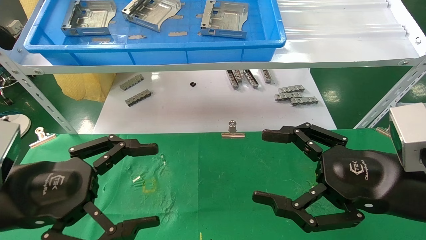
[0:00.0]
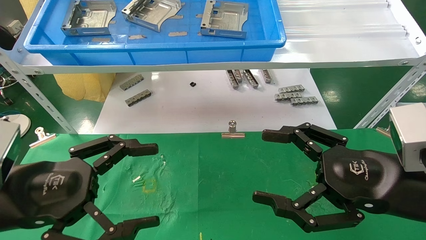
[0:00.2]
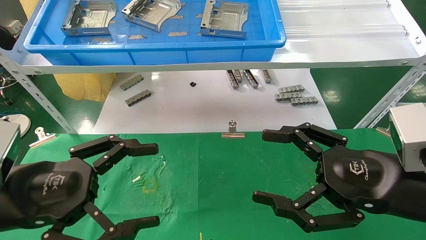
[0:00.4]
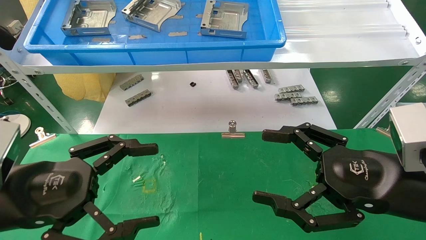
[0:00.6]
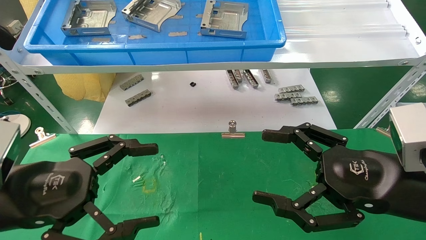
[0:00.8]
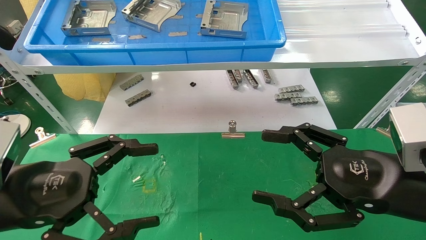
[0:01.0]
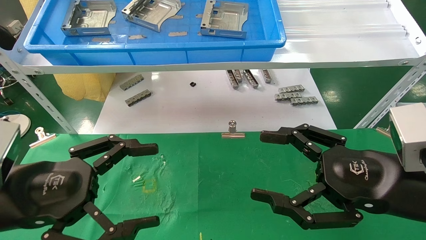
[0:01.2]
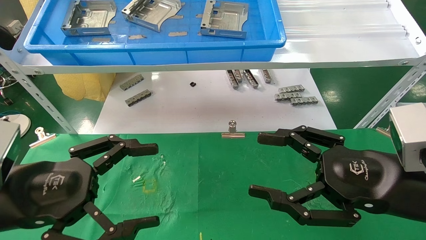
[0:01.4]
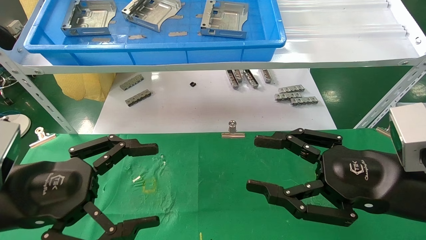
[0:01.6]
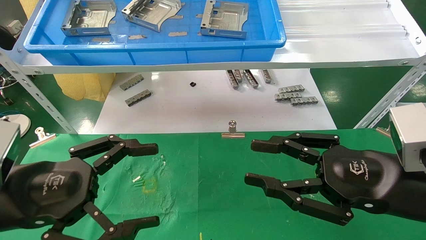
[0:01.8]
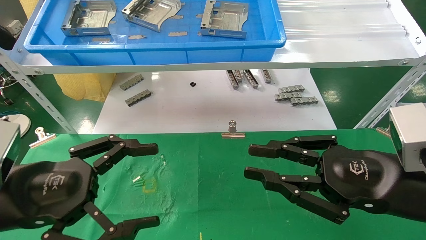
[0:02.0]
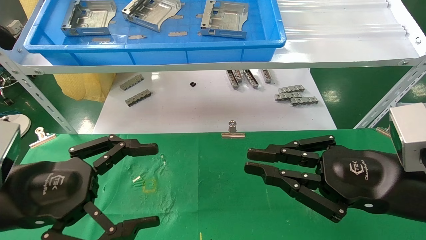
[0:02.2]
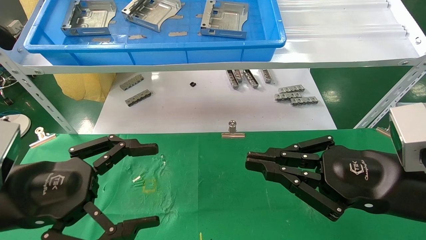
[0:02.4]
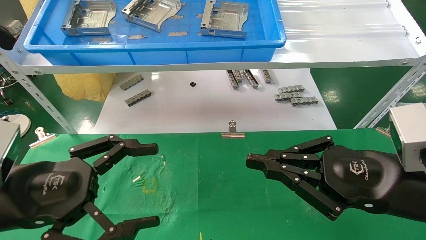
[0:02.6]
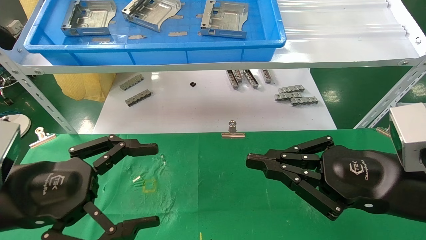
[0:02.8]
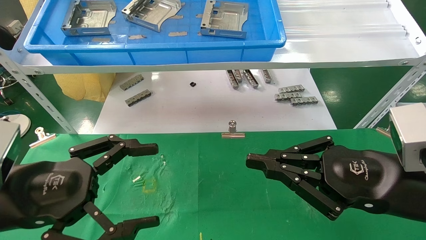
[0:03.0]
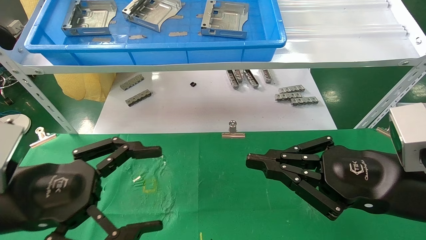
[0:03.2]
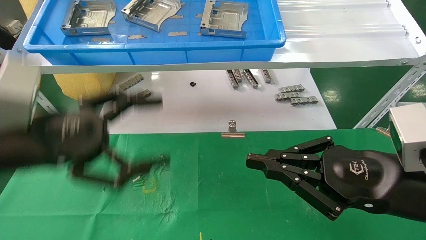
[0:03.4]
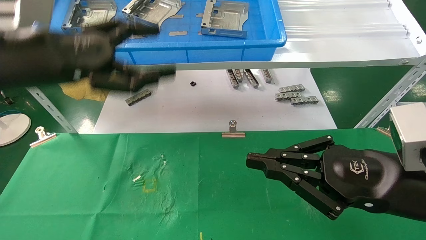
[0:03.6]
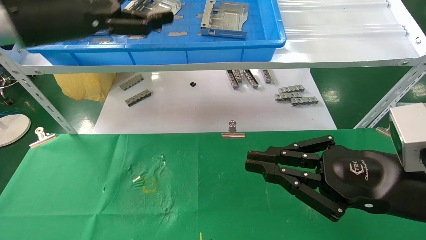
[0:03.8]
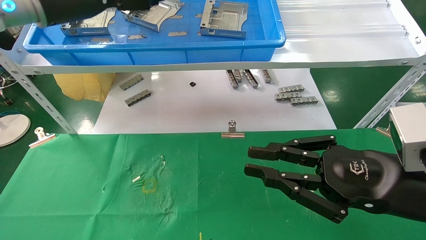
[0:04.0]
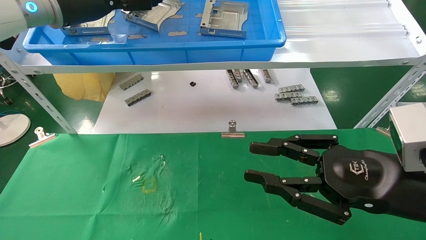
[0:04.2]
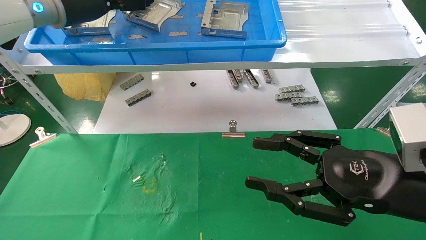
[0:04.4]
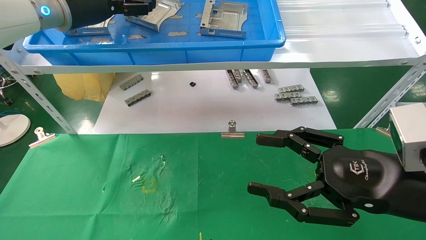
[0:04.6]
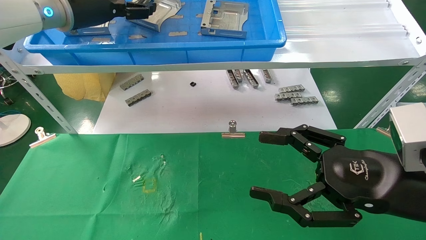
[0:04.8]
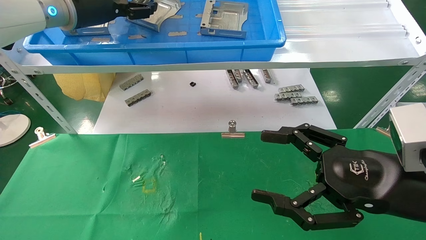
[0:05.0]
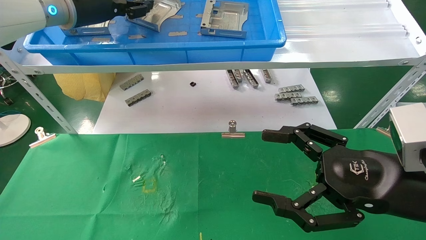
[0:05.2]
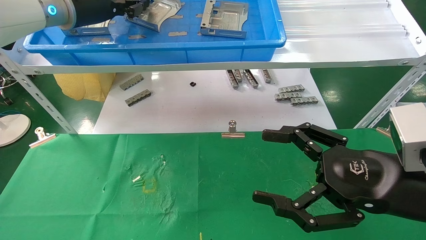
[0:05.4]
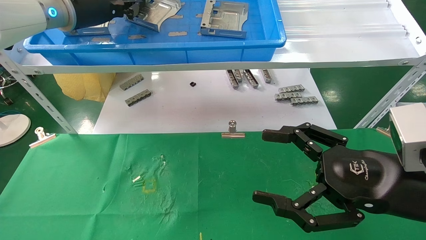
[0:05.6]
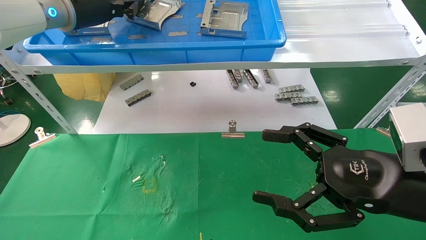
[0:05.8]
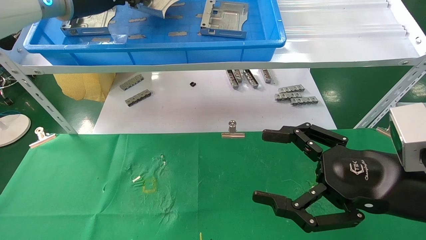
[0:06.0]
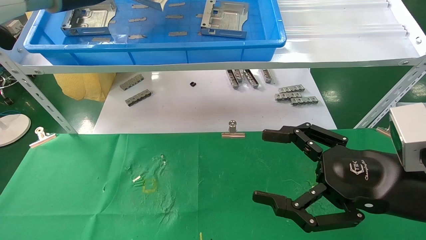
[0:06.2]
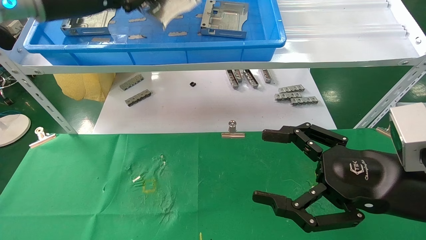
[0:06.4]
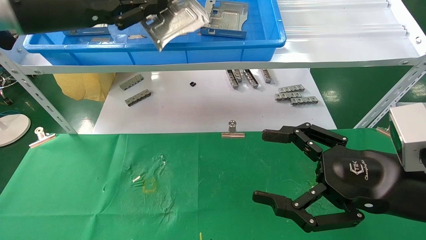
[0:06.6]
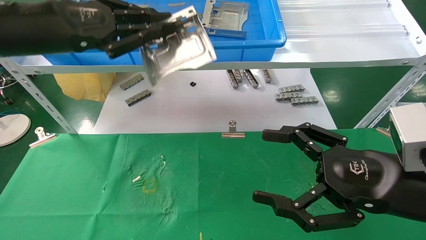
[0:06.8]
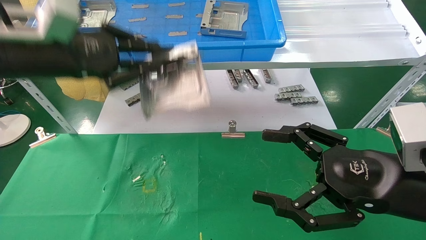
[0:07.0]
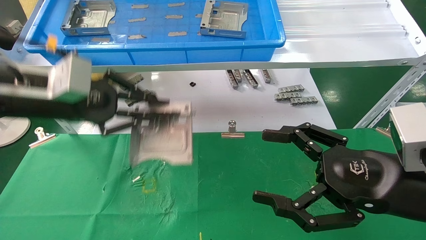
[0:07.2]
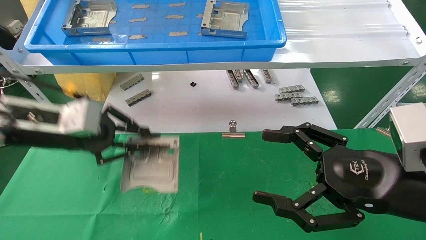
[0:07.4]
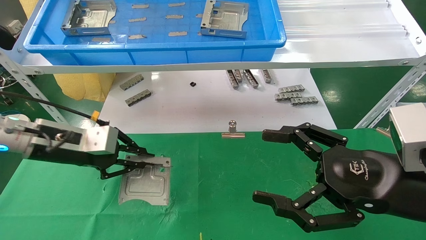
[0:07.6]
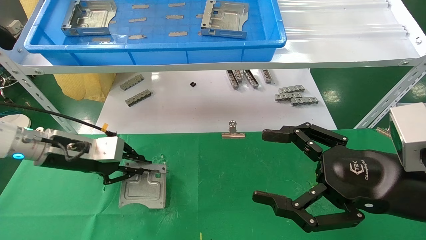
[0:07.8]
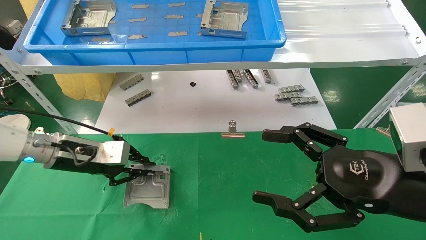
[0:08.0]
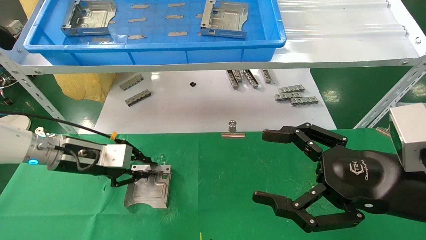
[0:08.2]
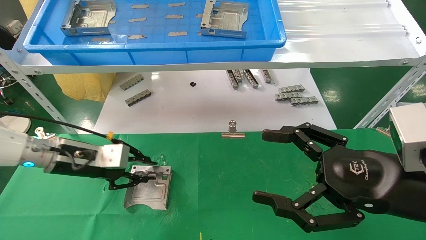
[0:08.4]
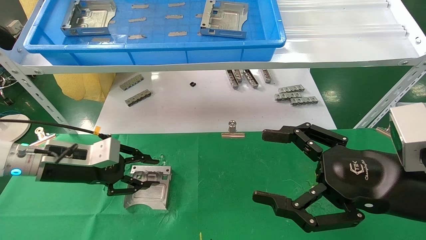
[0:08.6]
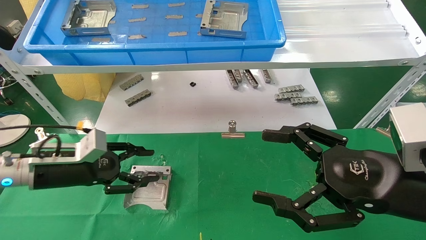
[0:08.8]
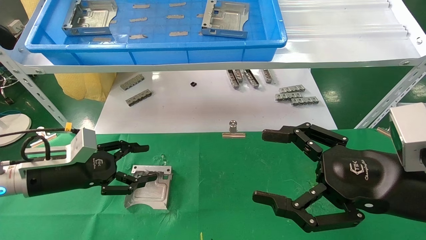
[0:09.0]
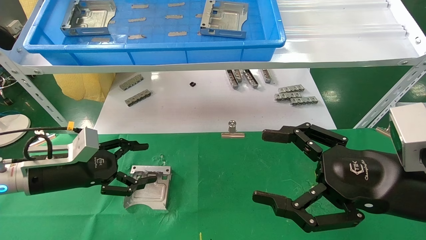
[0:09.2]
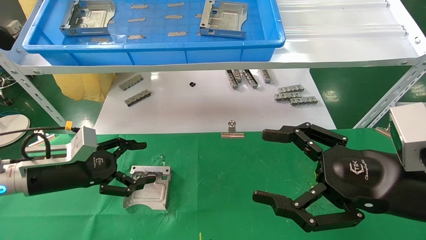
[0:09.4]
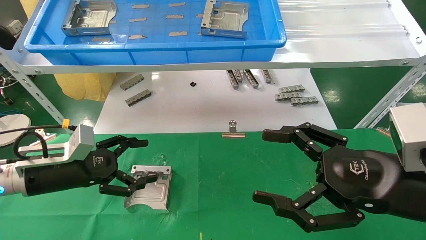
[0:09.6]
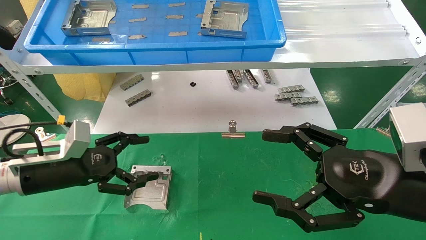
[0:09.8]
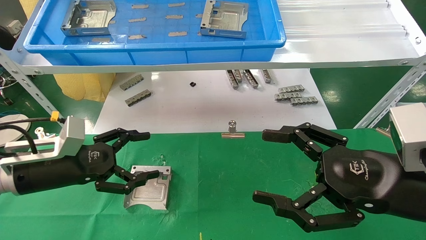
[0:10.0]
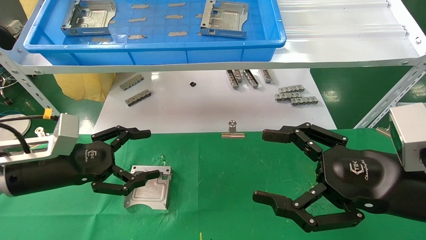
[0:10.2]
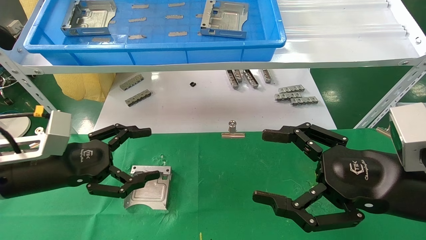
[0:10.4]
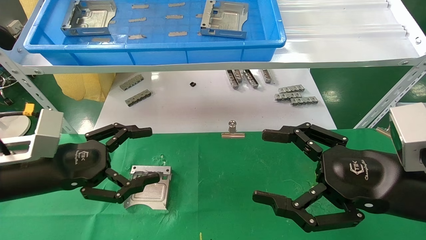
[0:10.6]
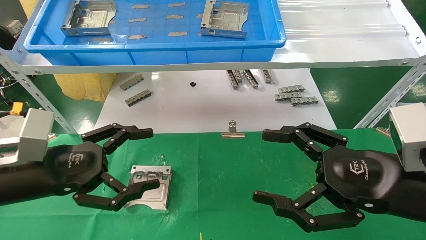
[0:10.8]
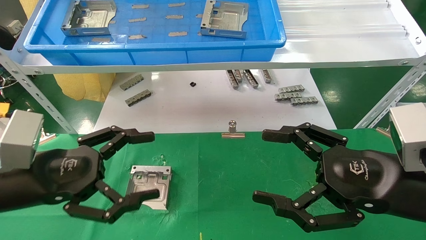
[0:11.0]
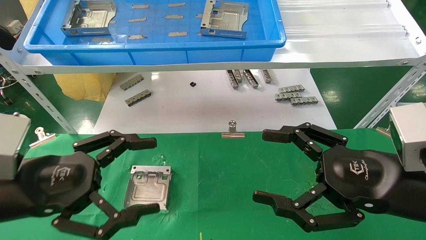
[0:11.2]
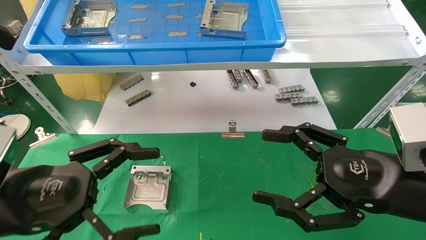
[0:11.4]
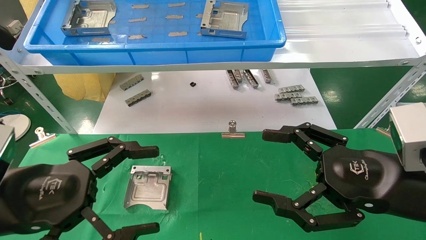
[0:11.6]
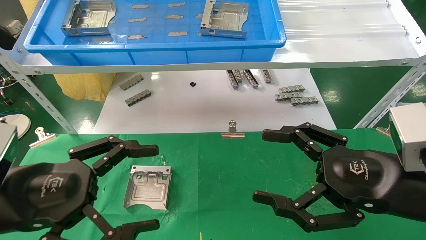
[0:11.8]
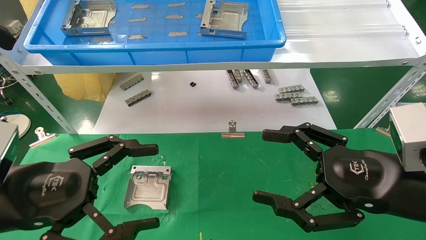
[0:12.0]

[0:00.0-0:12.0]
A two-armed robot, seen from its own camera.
Task of the whole recording: use the mechanical arm to pick up the parts and place them on the table.
Step, 0:03.2 to 0:05.6: Pick up the hard drive bracket from the feeding area.
Step, 0:05.8 to 0:08.8: Place the hard drive bracket into the box.
0:00.0 to 0:01.6: Both grippers stay about where they are.
0:01.6 to 0:03.0: The right gripper closes up.
0:03.0 to 0:04.4: The right gripper opens its fingers, while the left gripper heads forward and upward, covering about 30 cm.
0:04.4 to 0:06.0: The right gripper opens its fingers, while the left gripper closes its fingers.
0:06.0 to 0:07.6: The left gripper heads downward, covering about 25 cm.
0:07.6 to 0:09.0: The left gripper heads downward, covering some 10 cm, and opens its fingers.
0:09.0 to 0:10.4: The left gripper shifts roughly 5 cm backward, and opens its fingers.
0:10.4 to 0:12.0: The left gripper shifts roughly 10 cm backward.
